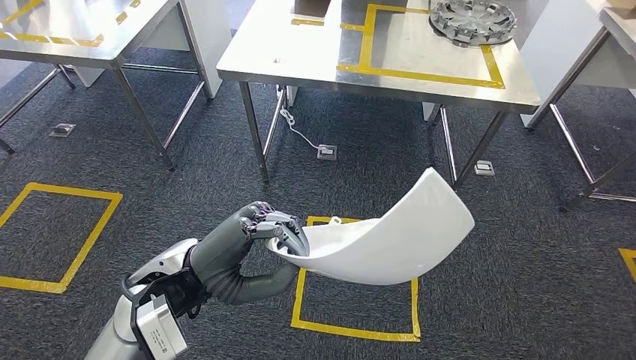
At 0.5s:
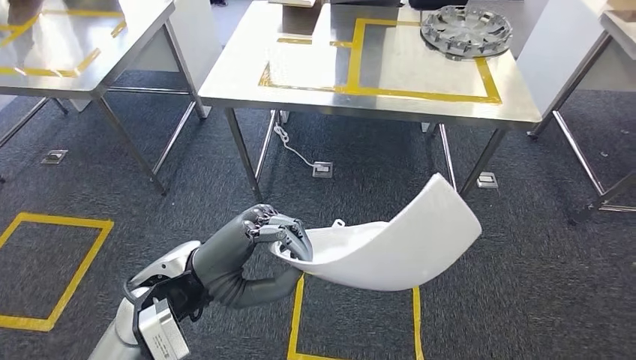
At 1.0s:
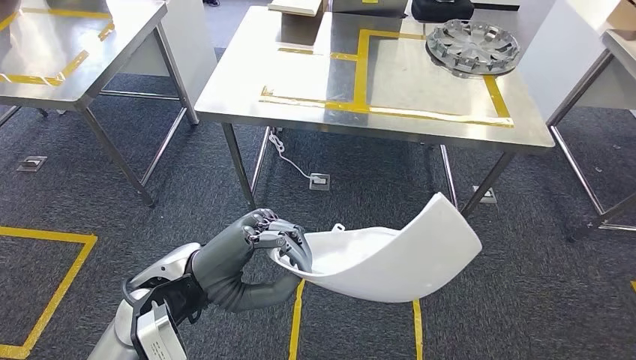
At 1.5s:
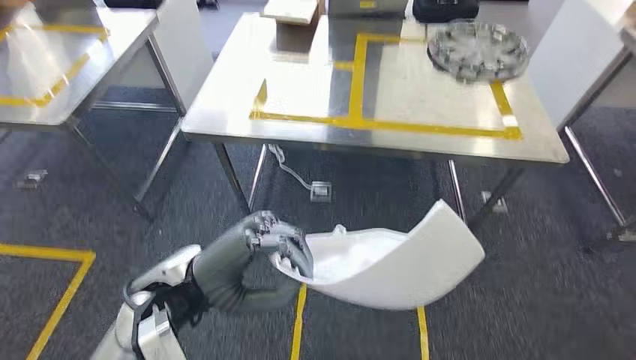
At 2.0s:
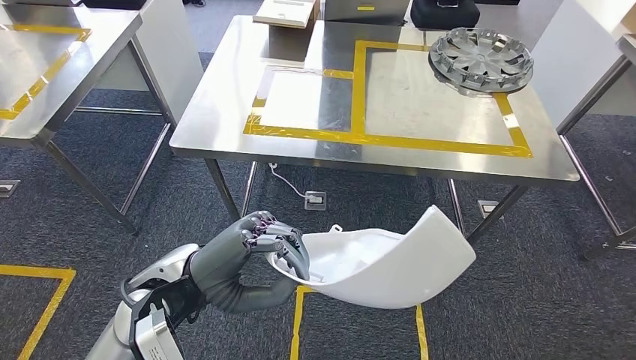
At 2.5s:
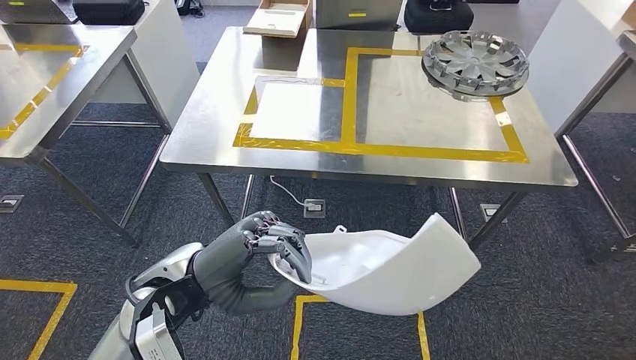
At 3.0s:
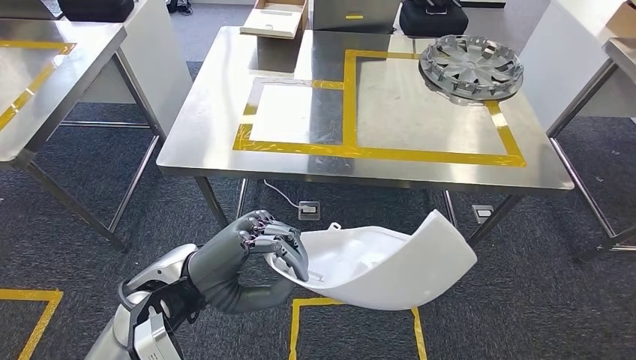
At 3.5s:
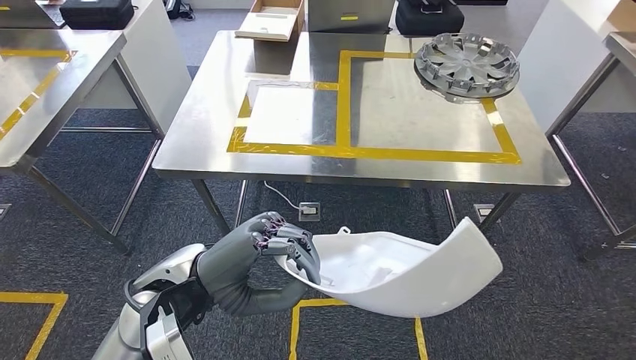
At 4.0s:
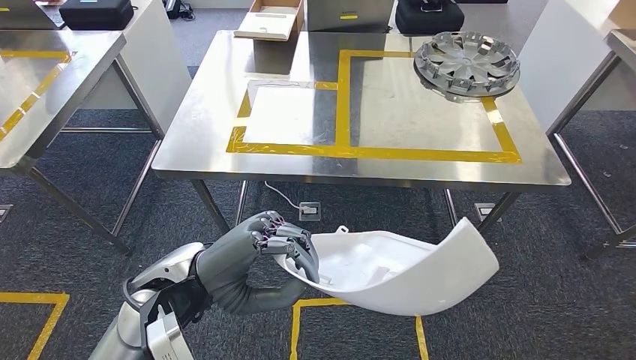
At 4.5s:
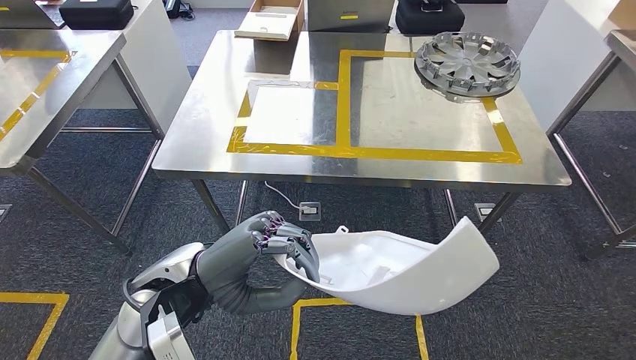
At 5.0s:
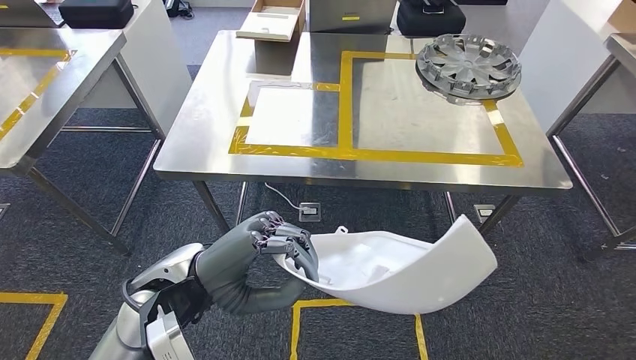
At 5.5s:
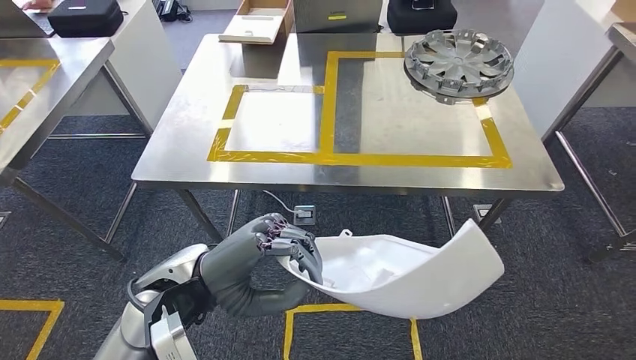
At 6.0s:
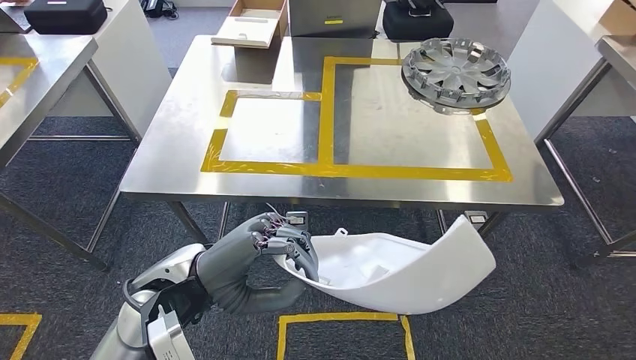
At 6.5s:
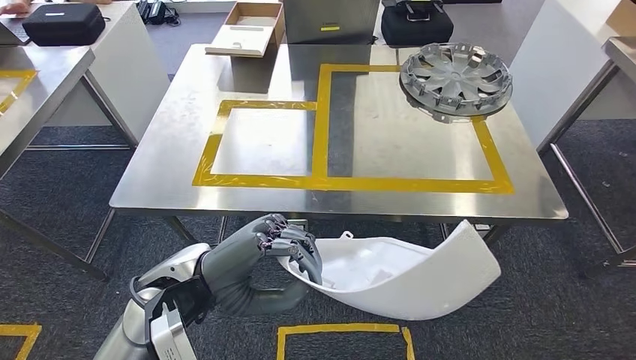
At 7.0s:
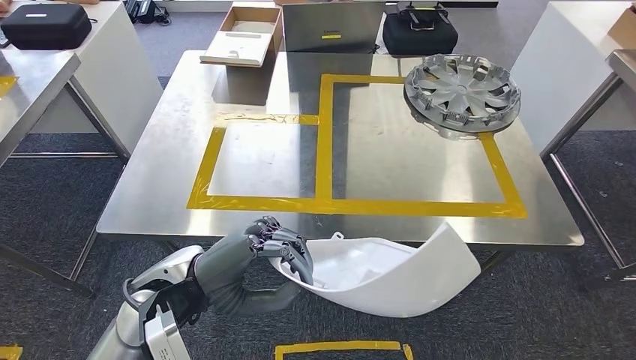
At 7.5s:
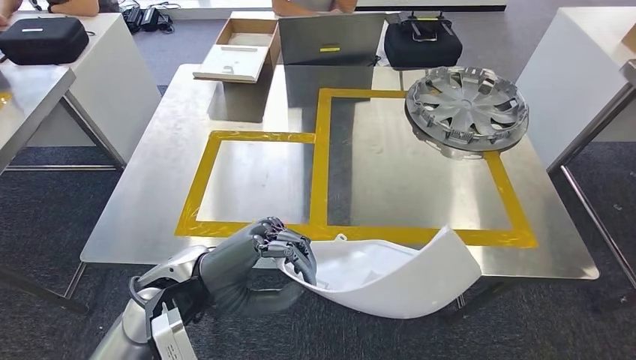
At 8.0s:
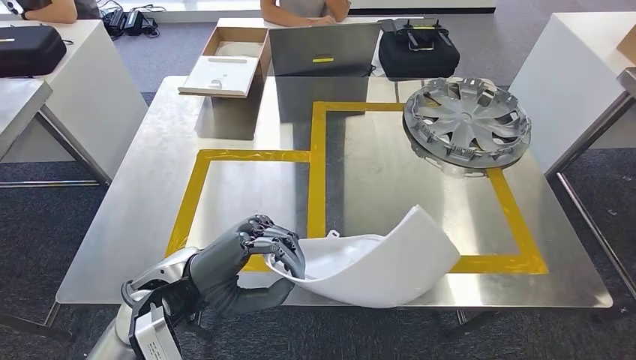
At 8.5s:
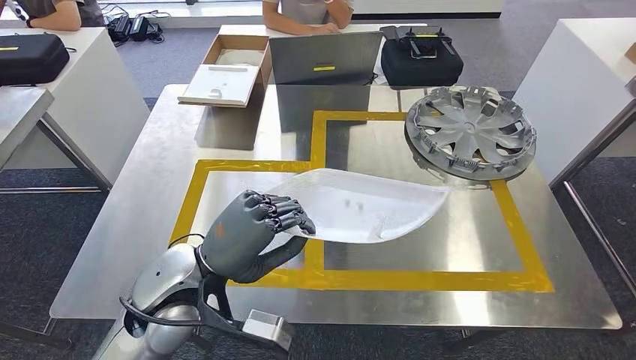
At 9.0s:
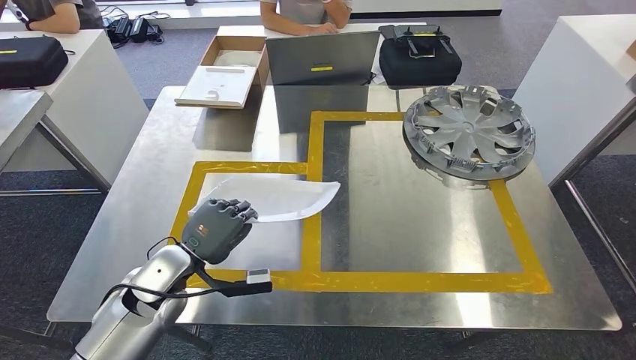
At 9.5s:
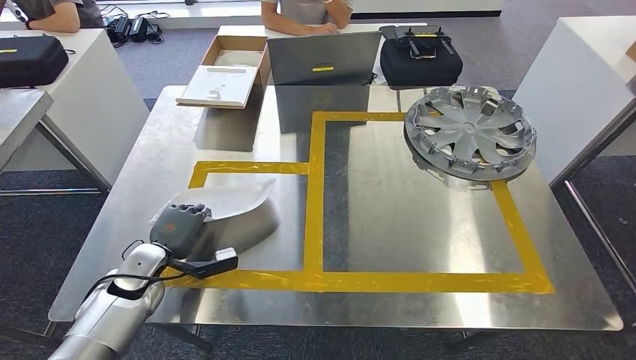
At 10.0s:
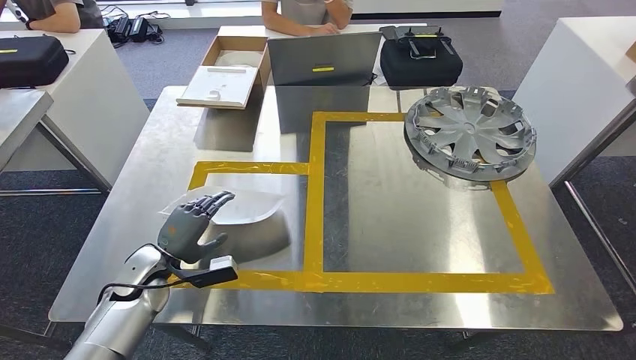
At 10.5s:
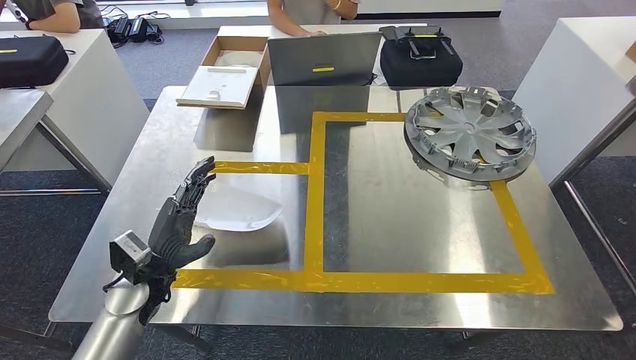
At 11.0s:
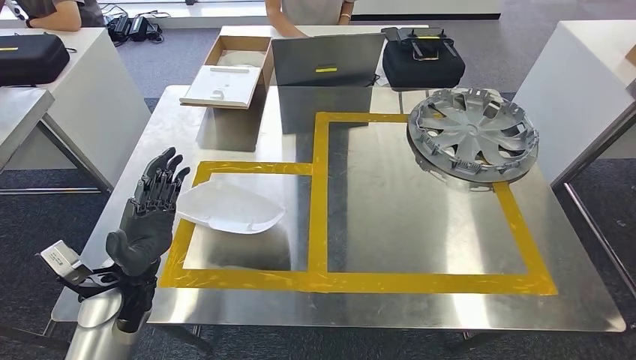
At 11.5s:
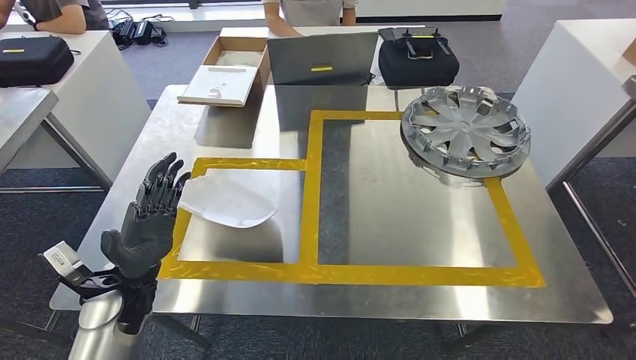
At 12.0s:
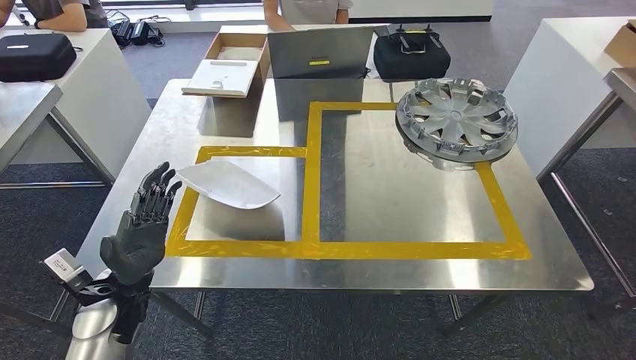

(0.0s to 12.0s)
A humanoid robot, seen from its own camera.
Step, 0.0s - 7.0s: Move the small parts to the workbench.
Step, 7.5s - 10.5s: Insert the small parts into the corresponding slots on the workbench.

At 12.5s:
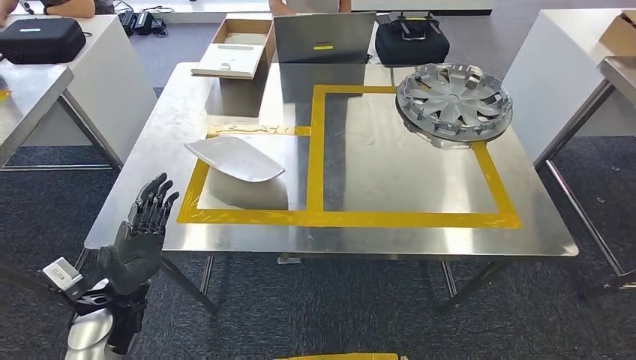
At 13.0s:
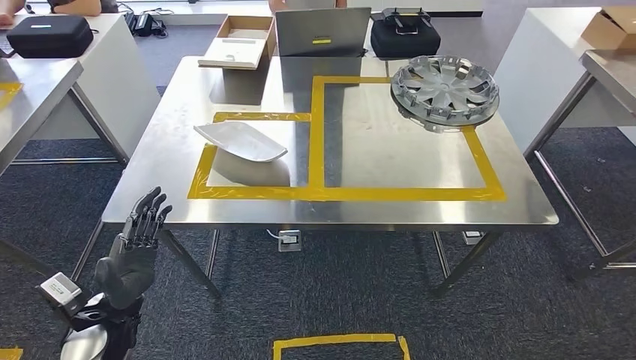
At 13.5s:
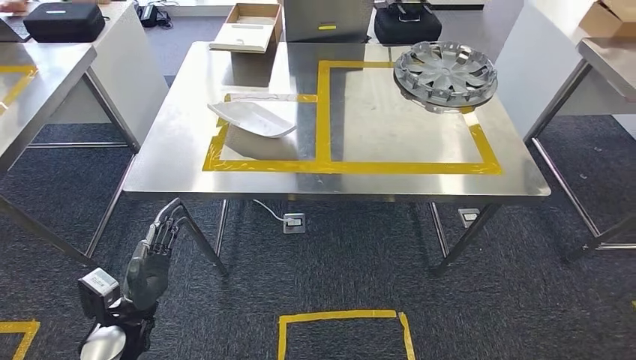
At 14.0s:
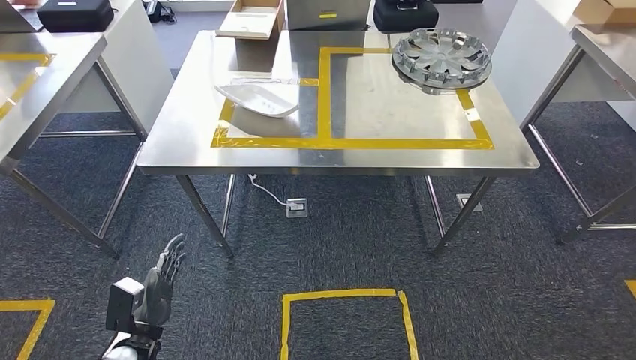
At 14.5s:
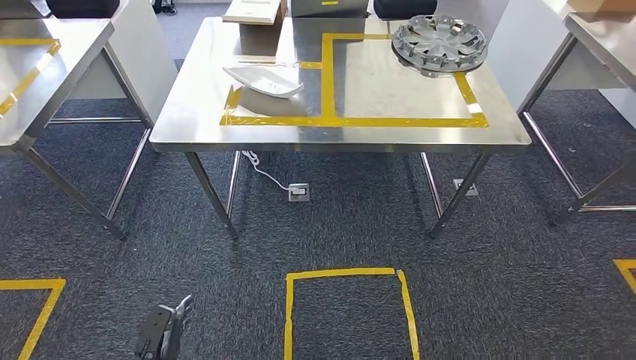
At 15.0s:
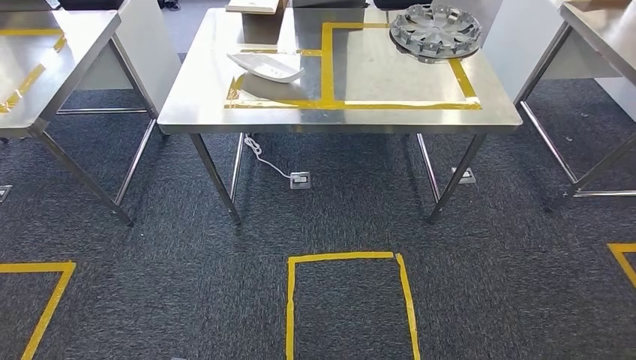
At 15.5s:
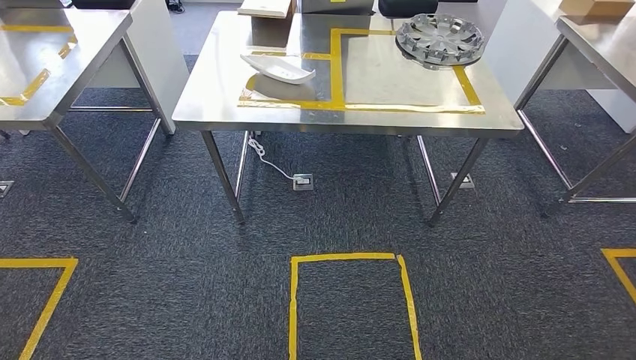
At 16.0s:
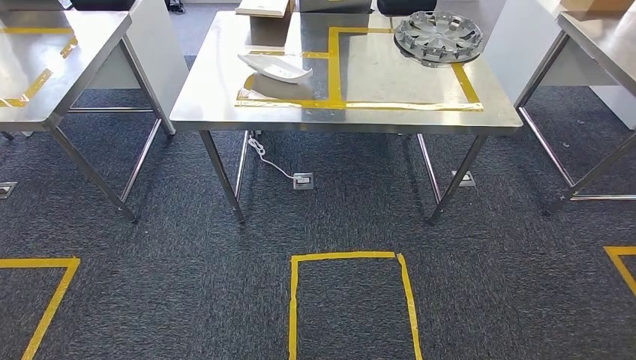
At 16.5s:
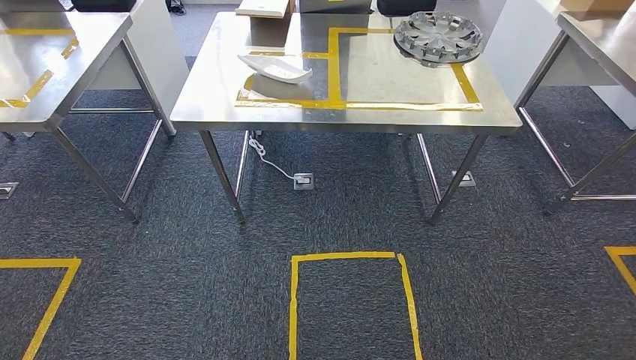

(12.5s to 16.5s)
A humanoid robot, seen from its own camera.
Step, 12.5s - 16.5s: Return to the initial position at the workbench.
